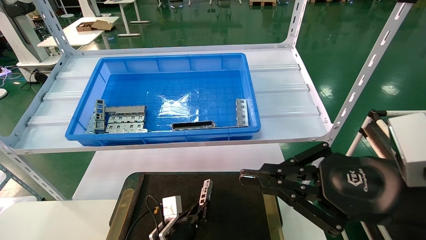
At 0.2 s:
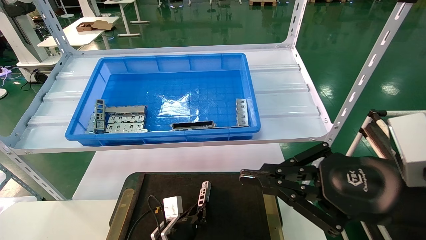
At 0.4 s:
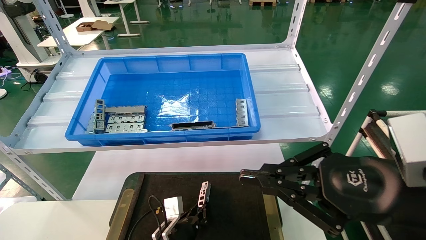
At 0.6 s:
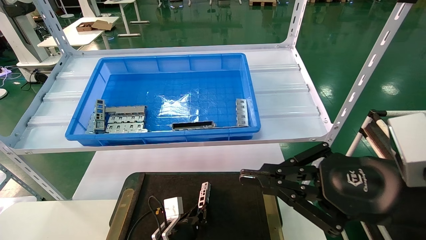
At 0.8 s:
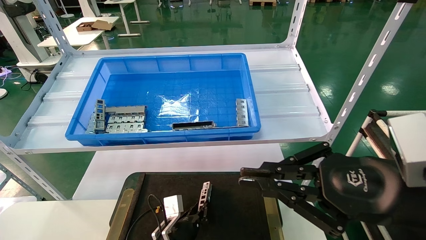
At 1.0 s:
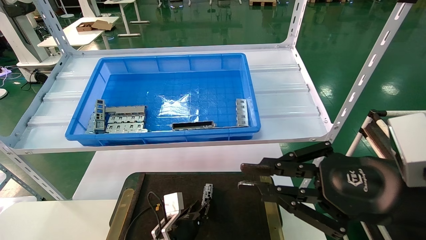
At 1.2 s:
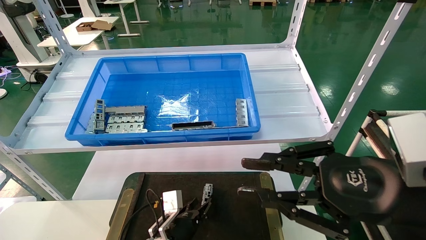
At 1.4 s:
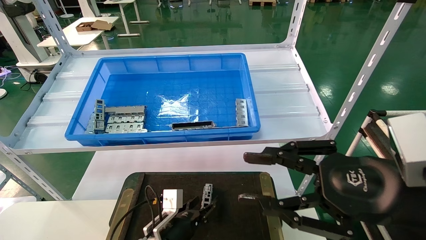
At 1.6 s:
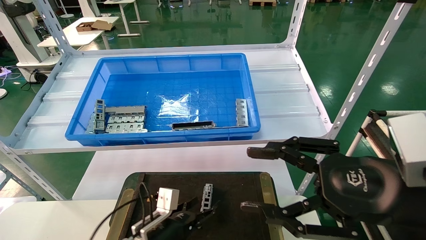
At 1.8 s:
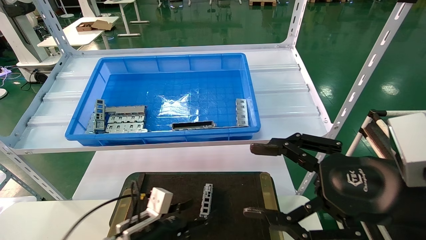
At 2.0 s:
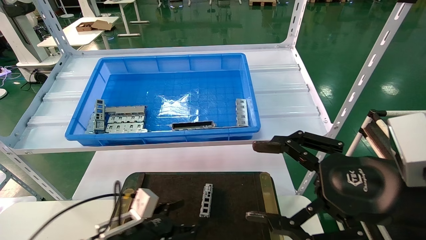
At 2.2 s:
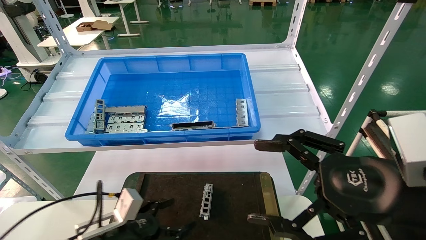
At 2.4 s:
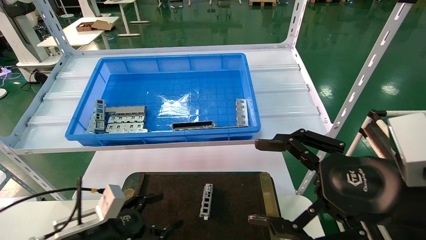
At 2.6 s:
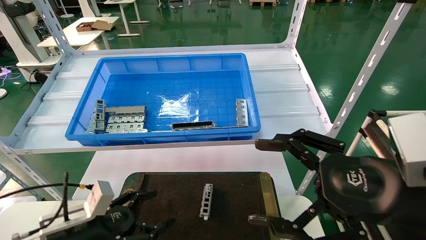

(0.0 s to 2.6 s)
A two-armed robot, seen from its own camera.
Task of the whole recording: Grasp the part with one hand and place it on the black container.
0.0 s - 1.2 s: There are only small adjustments of the grippers.
1.2 s - 2.6 s: The left gripper travels to the left, upward and backward by approximately 20 cm, and opens its fingers. The right gripper opens up.

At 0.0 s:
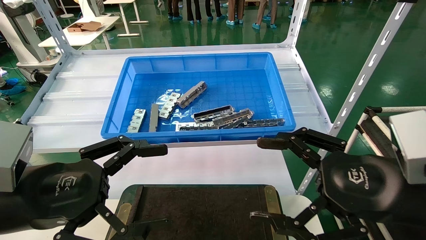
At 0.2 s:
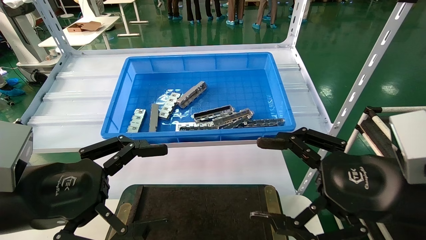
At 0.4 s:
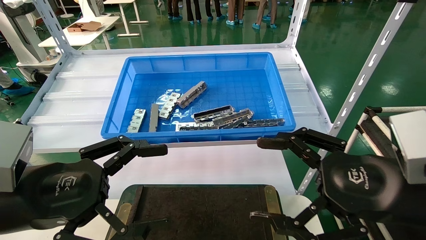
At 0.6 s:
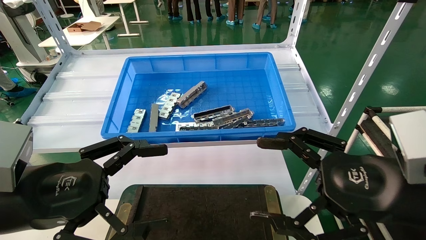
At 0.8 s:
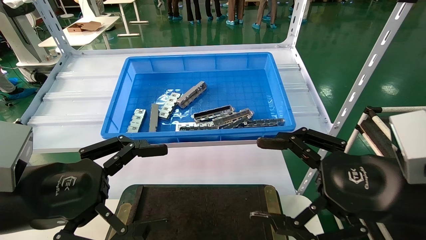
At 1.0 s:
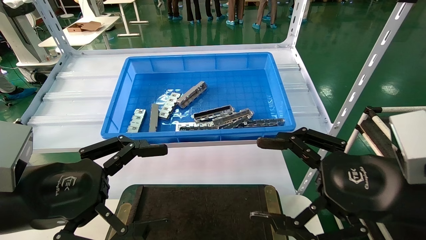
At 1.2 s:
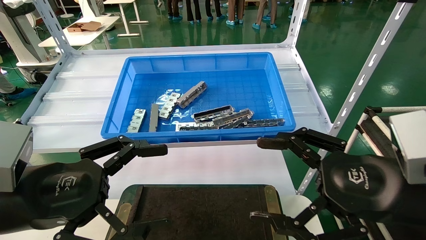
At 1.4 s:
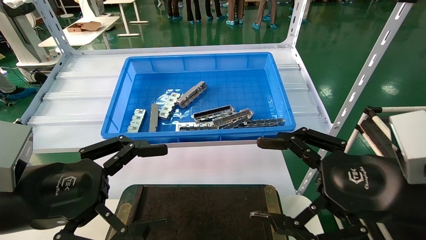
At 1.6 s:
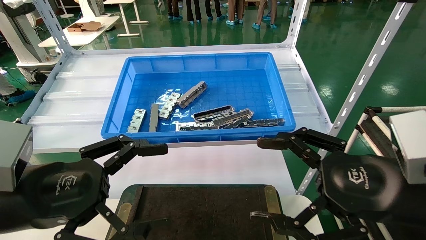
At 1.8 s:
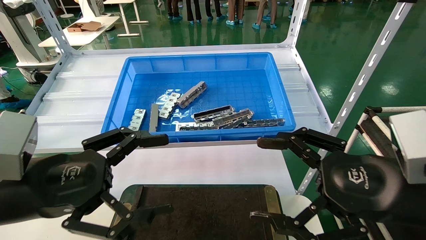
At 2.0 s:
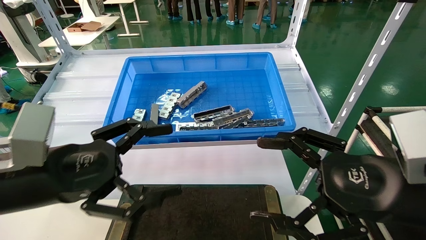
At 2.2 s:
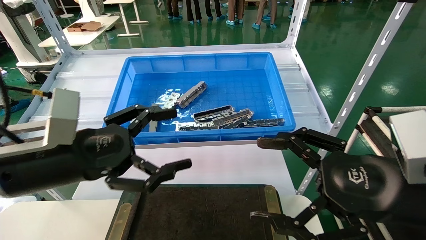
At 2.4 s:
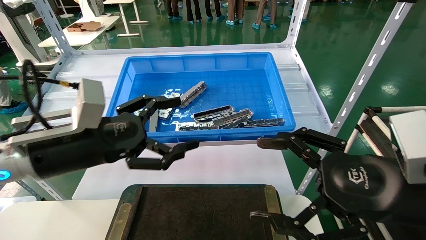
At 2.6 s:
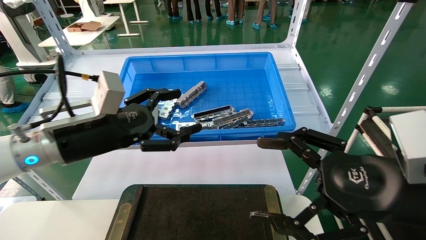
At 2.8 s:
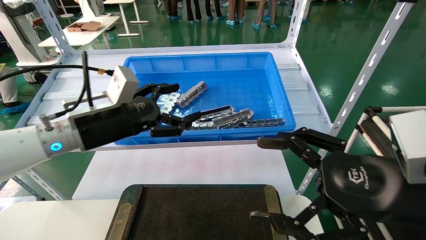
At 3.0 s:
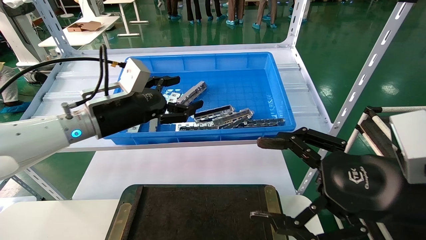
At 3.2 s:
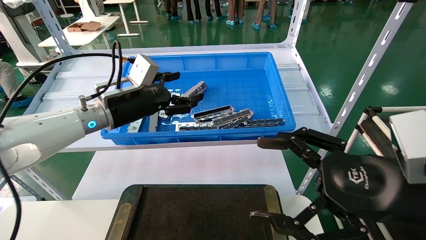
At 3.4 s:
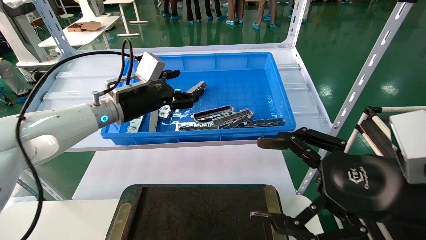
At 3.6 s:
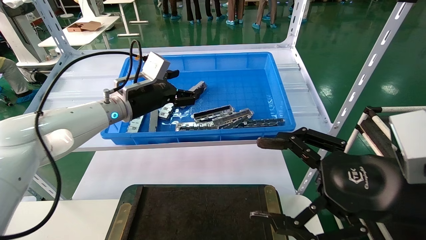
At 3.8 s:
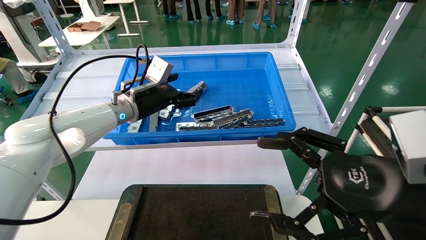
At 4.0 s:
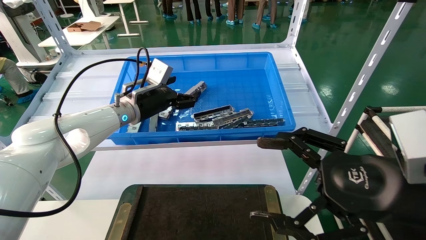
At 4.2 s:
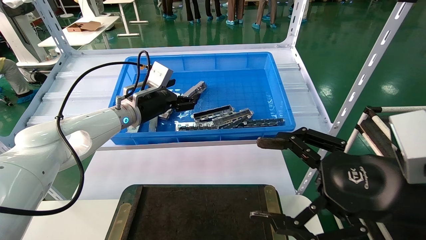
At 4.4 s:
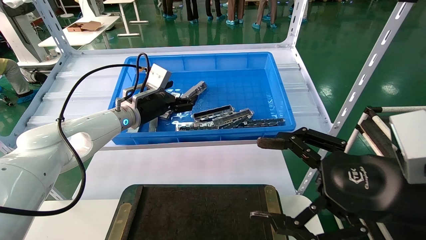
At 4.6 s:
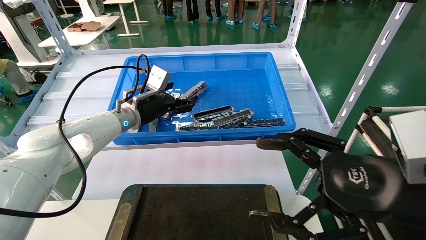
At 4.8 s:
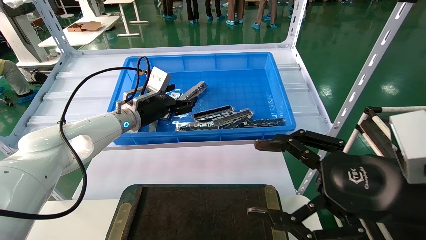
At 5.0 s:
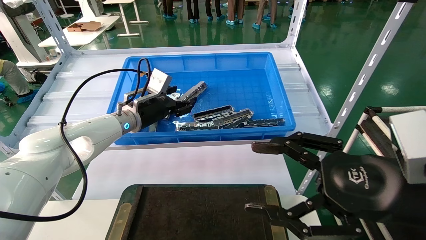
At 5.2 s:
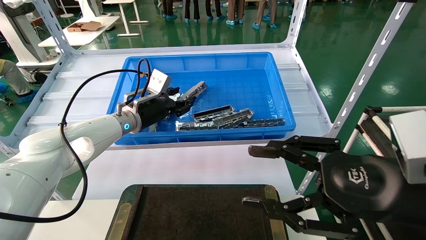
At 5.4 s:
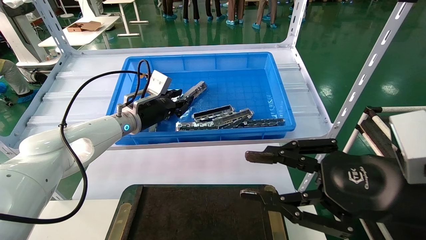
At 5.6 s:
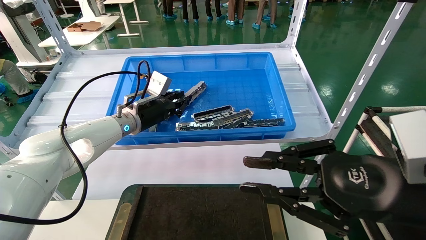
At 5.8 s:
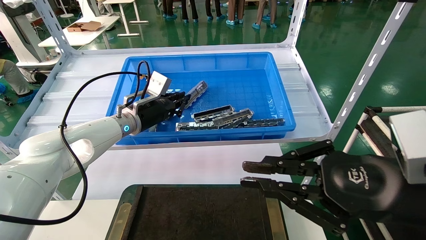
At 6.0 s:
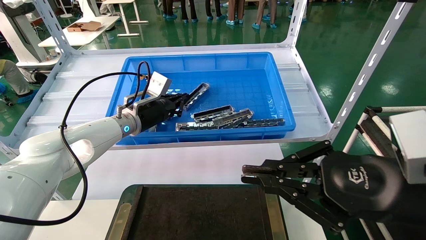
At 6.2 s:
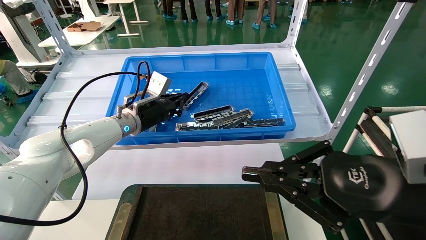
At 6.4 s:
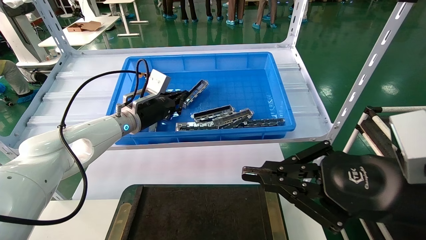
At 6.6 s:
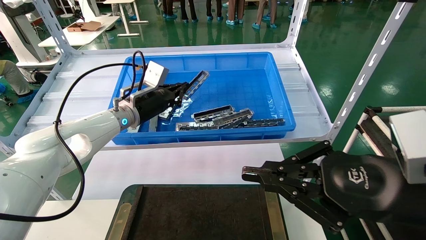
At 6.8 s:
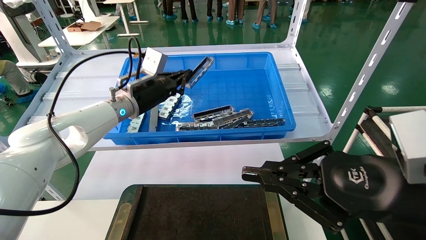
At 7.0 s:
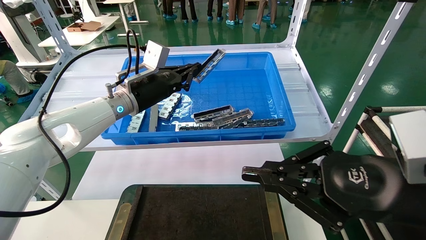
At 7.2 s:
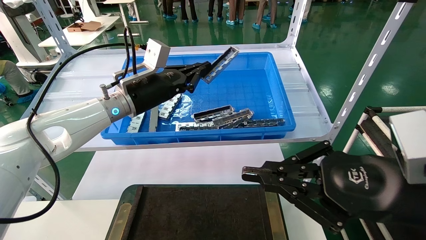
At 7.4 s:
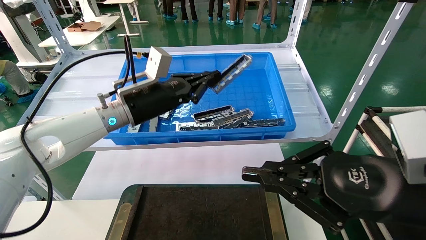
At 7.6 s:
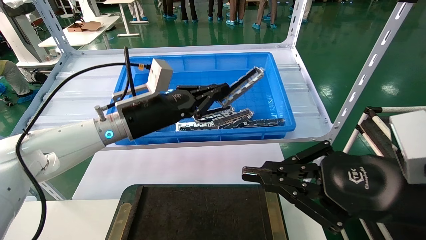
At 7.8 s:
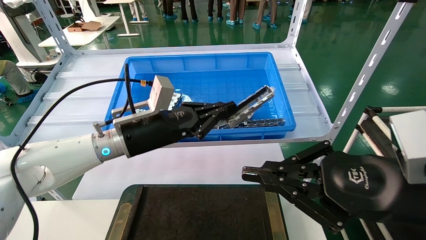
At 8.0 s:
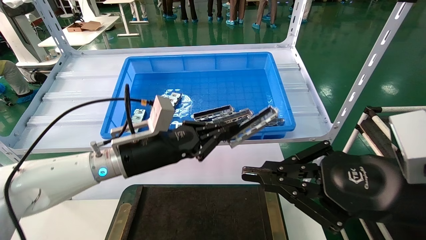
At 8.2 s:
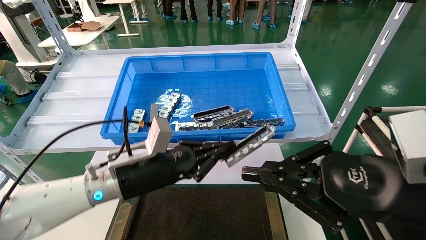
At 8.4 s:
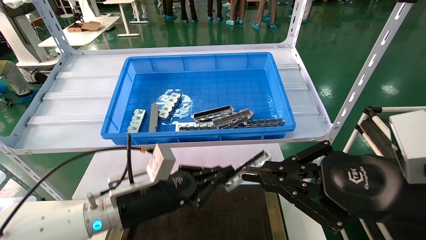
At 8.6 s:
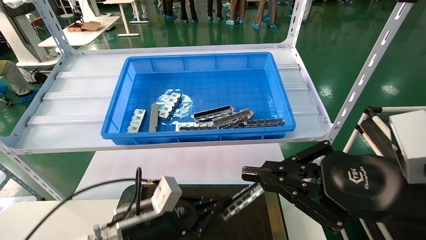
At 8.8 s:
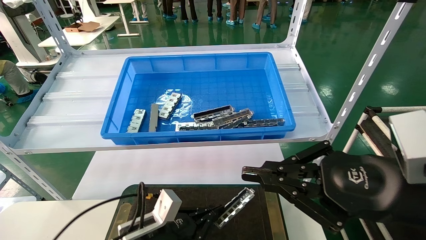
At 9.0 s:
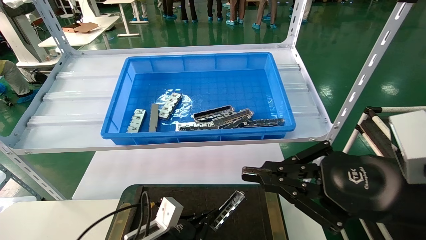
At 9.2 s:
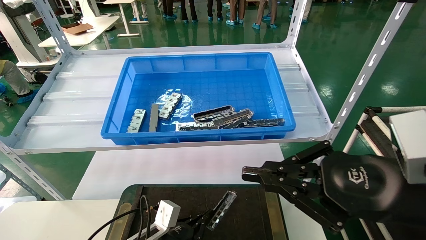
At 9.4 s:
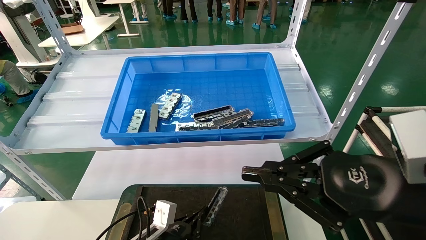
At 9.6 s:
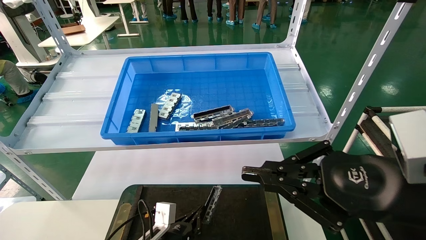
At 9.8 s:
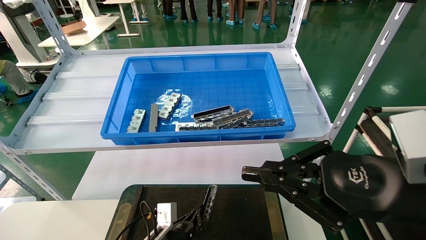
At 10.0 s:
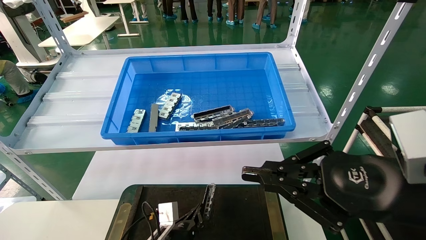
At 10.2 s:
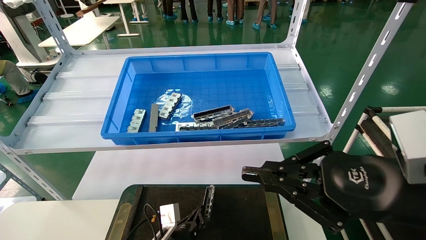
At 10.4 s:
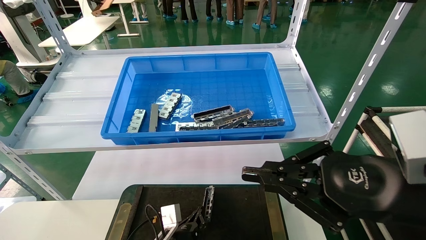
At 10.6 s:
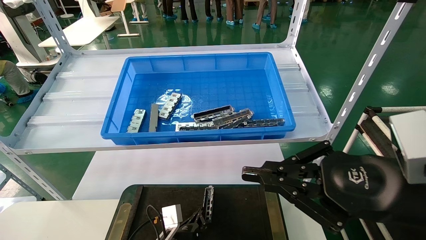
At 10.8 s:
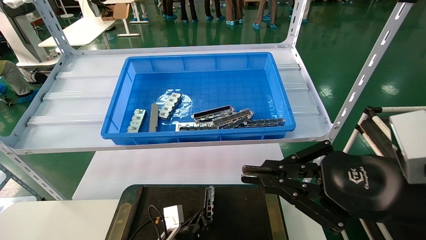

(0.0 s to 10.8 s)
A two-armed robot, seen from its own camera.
Task of the whole recording: Grasp the part with one hand and place it on the black container.
Step, 2.0 s - 5.8 s: Pick up the front USB bracket from the feeding area.
0.0 s - 1.6 s: Both grippers stay about where they are.
1.6 s - 3.0 s: The left gripper goes about 20 cm forward.
3.0 s - 4.6 s: The left gripper travels forward by about 10 cm.
4.6 s - 6.2 s: The left gripper closes its fingers; the right gripper closes.
6.2 s - 7.8 s: The left gripper shifts some 10 cm backward.
7.8 s - 9.2 s: The left gripper heads downward, covering some 25 cm.
9.2 s - 10.8 s: The left gripper goes approximately 10 cm downward and to the right.

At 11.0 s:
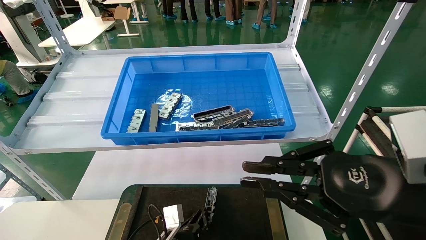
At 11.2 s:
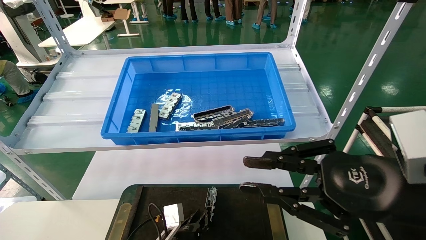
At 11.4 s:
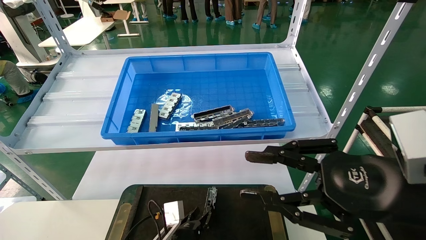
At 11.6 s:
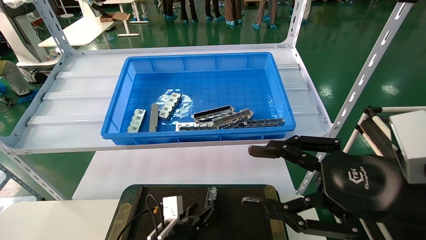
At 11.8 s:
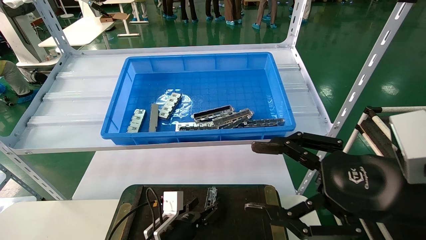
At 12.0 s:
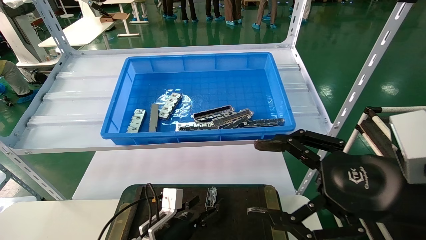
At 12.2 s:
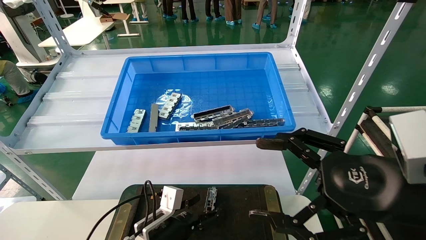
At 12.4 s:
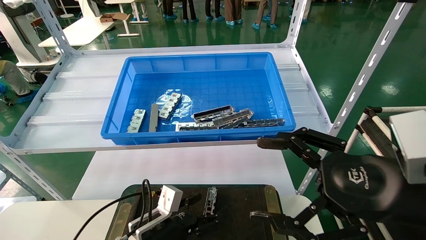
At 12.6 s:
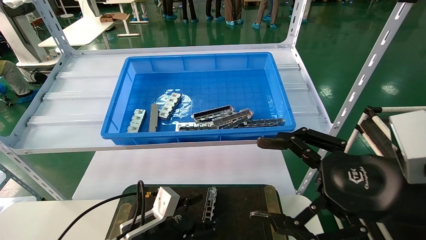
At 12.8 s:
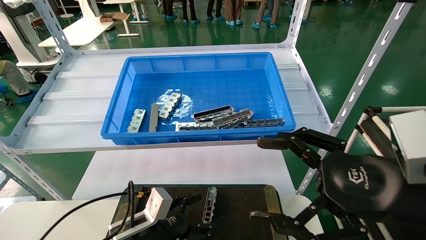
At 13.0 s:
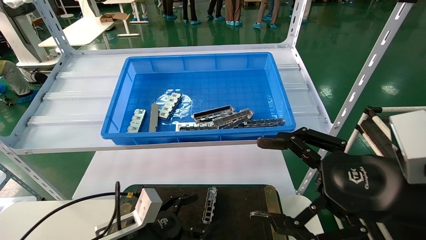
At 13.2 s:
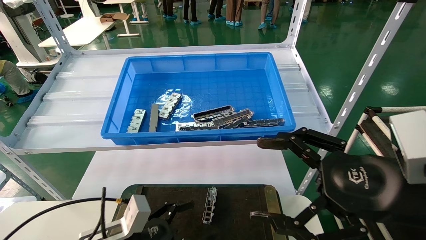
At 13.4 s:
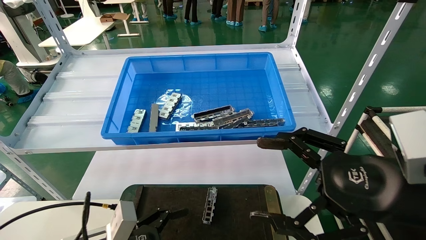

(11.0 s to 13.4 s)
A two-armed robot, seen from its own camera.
Task of the whole recording: Grasp the part with one hand and place it on the black container.
11.0 s - 12.2 s: The left gripper moves upward, roughly 5 cm, and opens, while the right gripper opens its fingers.
12.2 s - 13.4 s: The left gripper heads to the left, backward and upward, covering about 15 cm.
